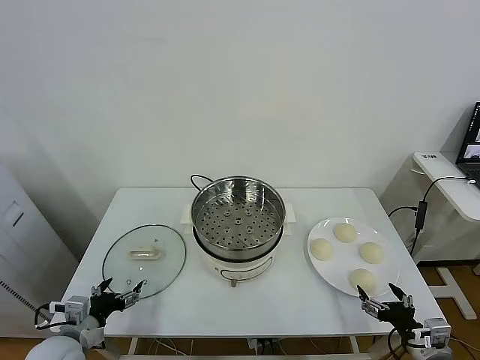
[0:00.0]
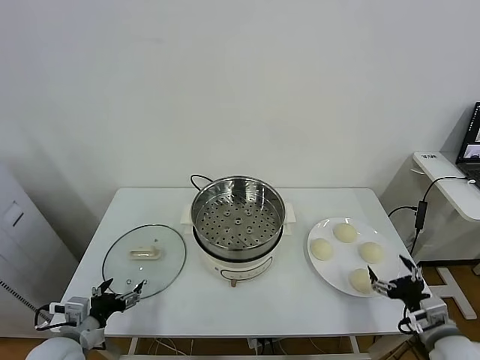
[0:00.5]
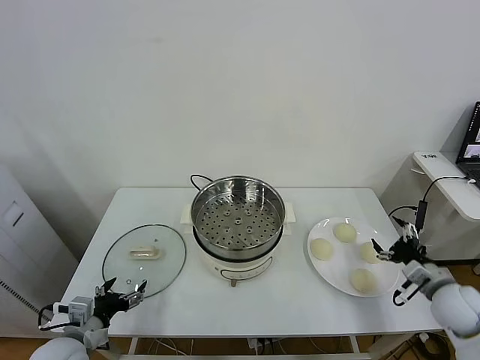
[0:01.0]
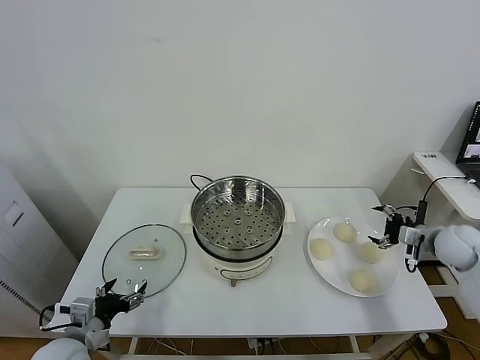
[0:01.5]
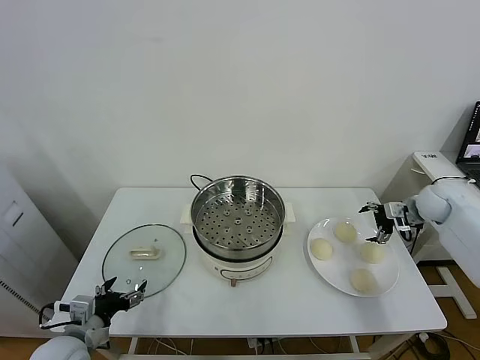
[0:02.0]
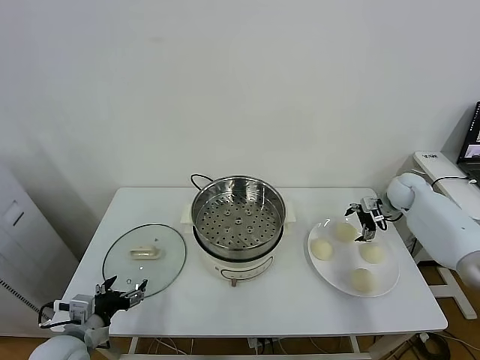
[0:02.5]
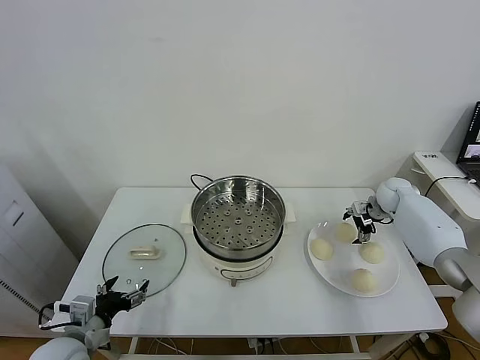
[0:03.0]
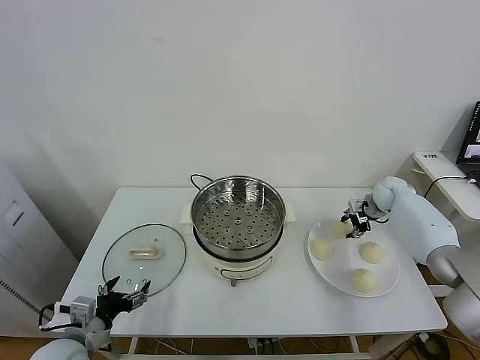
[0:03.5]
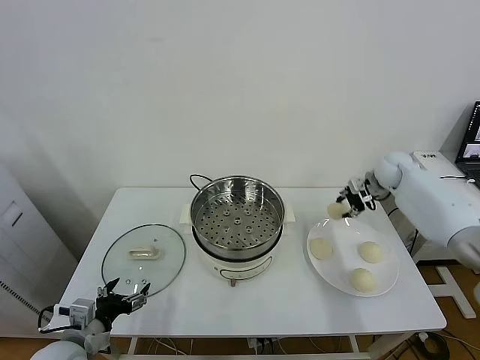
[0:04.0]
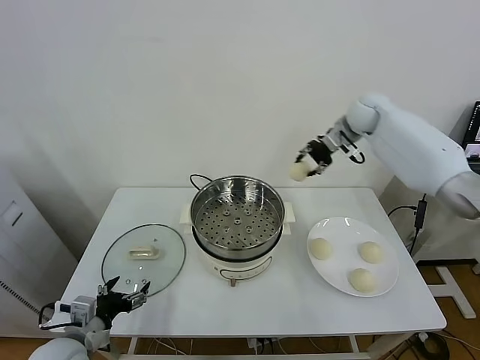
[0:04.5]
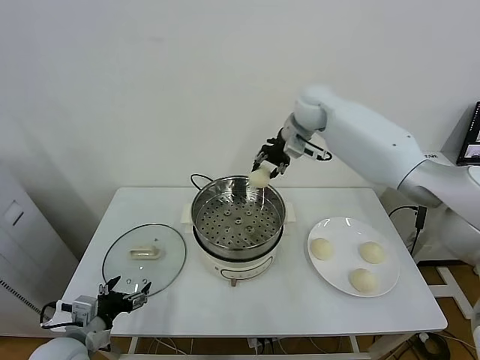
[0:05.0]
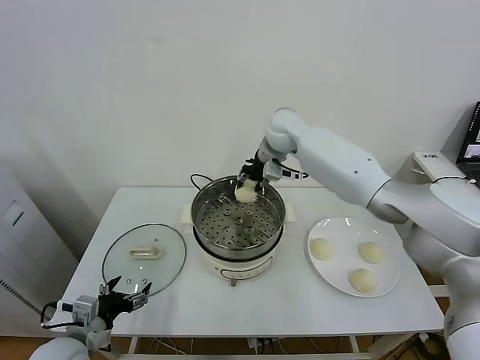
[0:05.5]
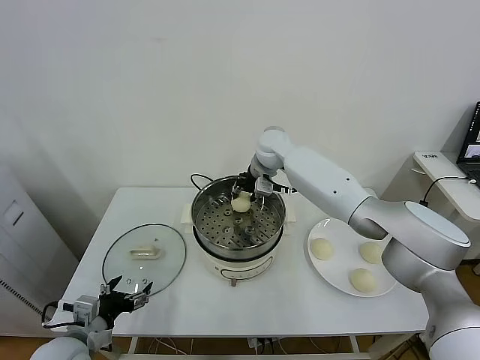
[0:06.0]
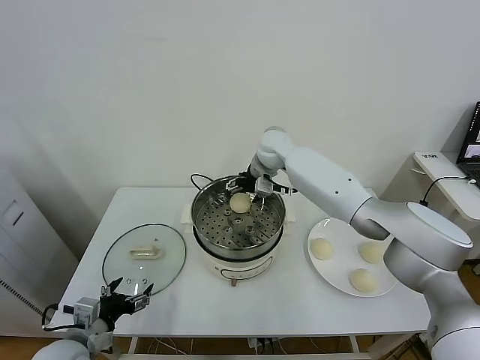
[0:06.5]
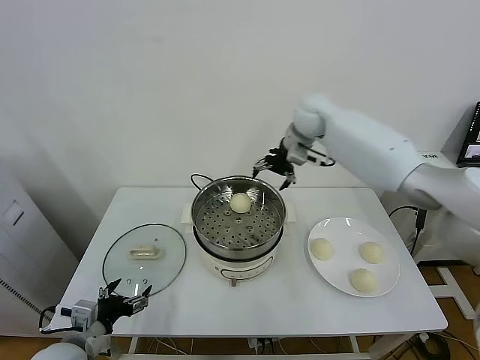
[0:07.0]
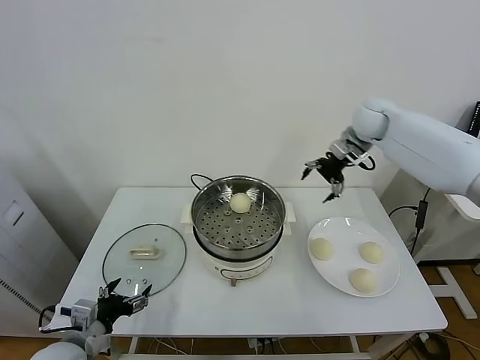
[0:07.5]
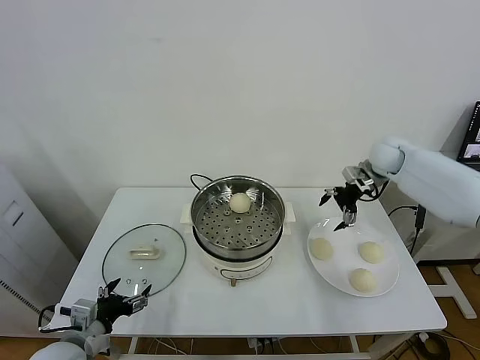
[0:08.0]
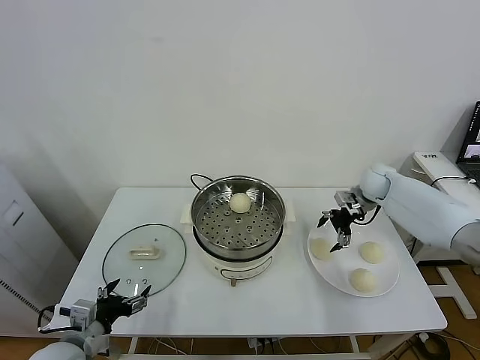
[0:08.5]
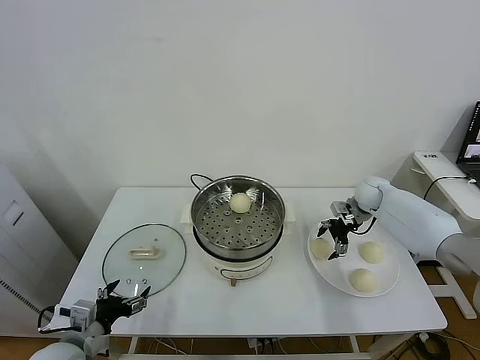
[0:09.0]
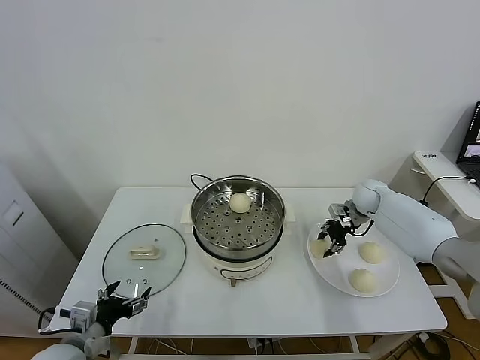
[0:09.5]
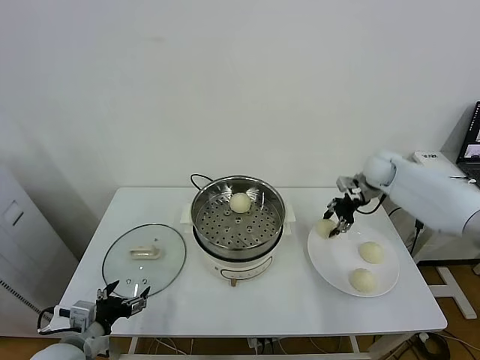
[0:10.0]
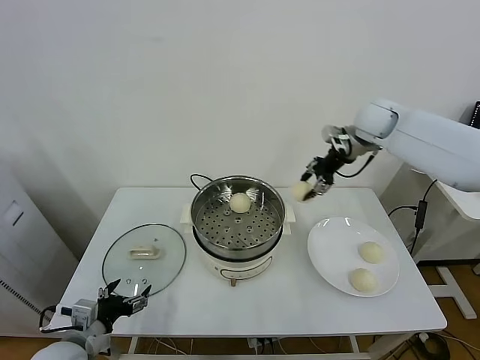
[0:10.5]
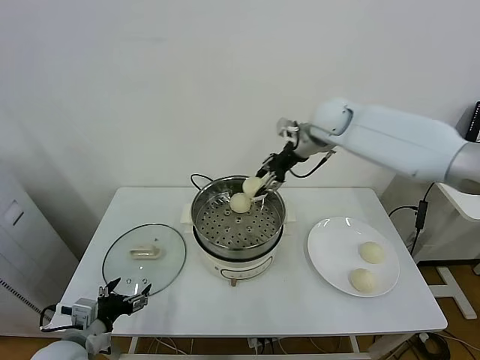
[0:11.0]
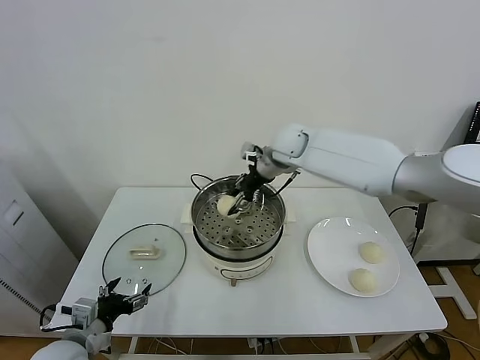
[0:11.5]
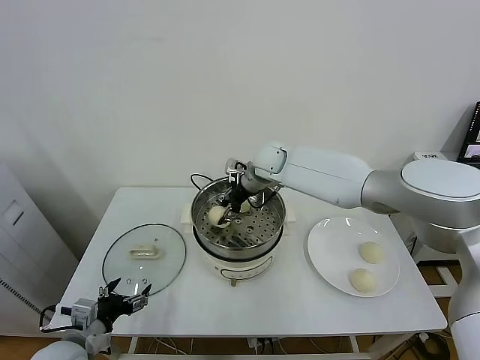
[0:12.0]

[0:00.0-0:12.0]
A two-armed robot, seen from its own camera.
Task of the whole recording: take steamed baozi put them in steamer.
Step, 0:00.0 to 0:03.0: Grasp the baozi in the plate with right gripper.
Step, 0:03.5 to 0:06.0: Place the baozi on the steamer with right gripper.
Step, 0:07.0 to 0:09.0: Grasp the baozi in the plate with right gripper.
0:02.0 to 0:04.0: The right gripper shifts approximately 10 cm forward and to the left, and closes up.
0:04.0 to 0:06.0: The right gripper goes roughly 35 cm to the left.
0:06.0 to 0:08.0: The right gripper shifts approximately 30 cm to the right, and opens up.
0:08.0 to 0:10.0: The right gripper goes downward and returns, some 15 cm each way, and closes up.
0:10.0 to 0:12.0: The right gripper heads to the left, covering about 30 cm.

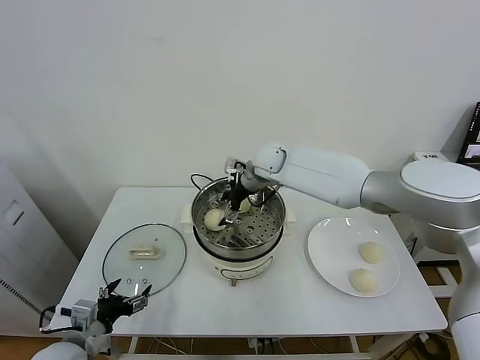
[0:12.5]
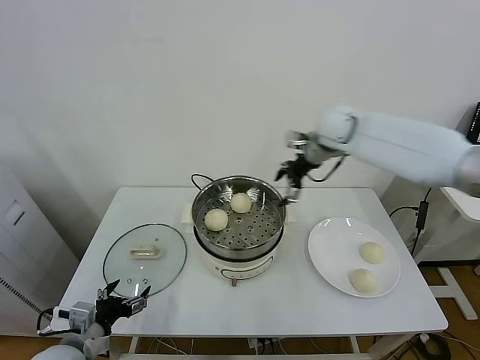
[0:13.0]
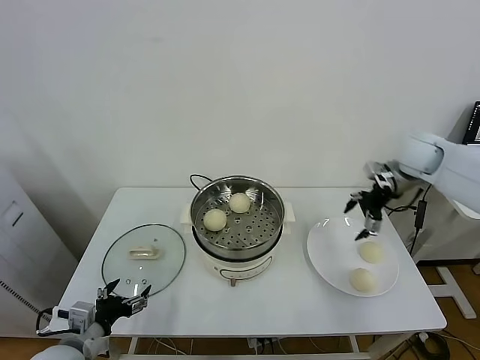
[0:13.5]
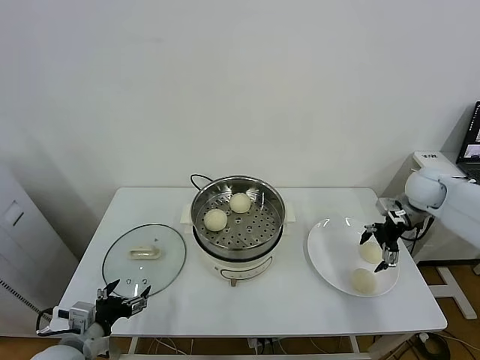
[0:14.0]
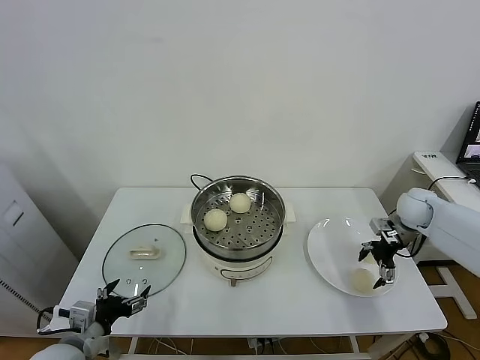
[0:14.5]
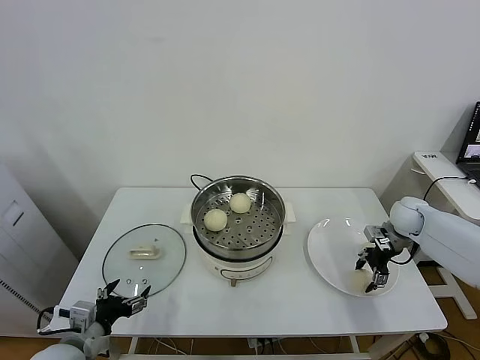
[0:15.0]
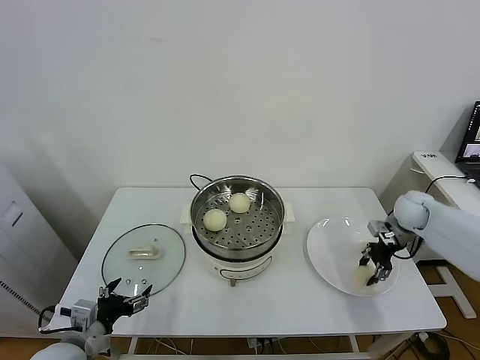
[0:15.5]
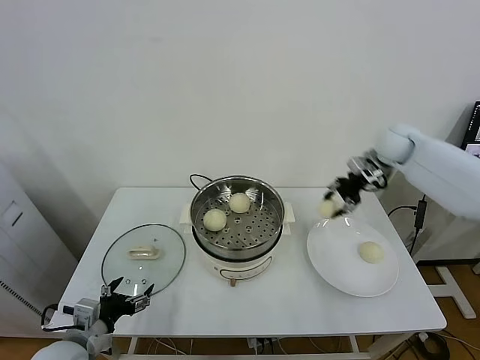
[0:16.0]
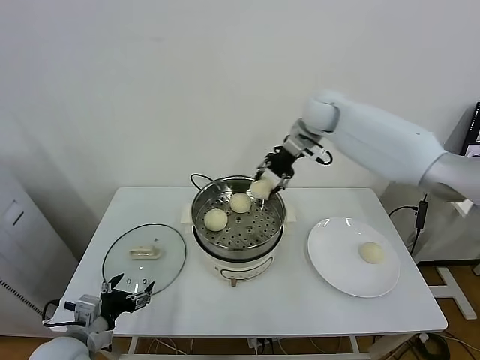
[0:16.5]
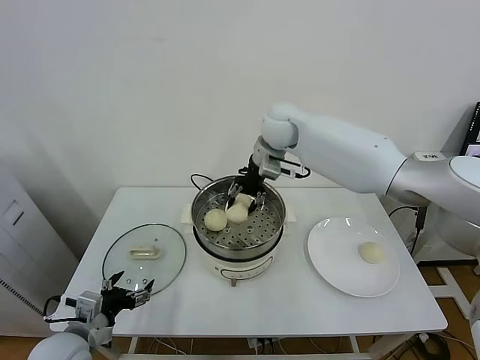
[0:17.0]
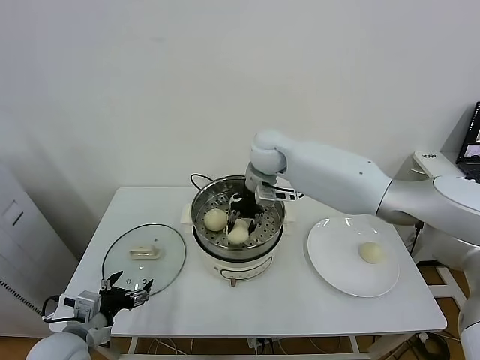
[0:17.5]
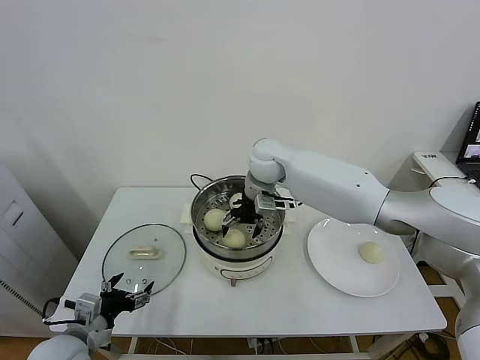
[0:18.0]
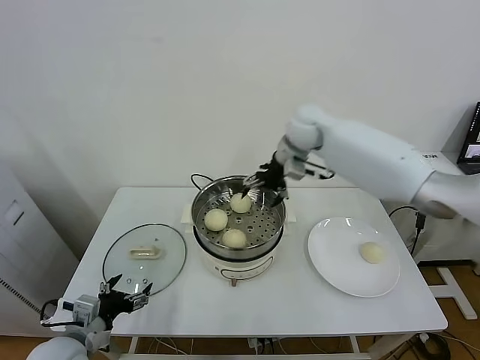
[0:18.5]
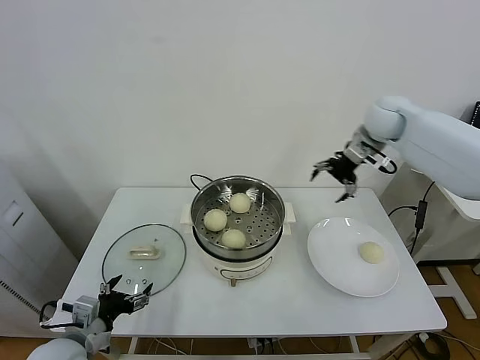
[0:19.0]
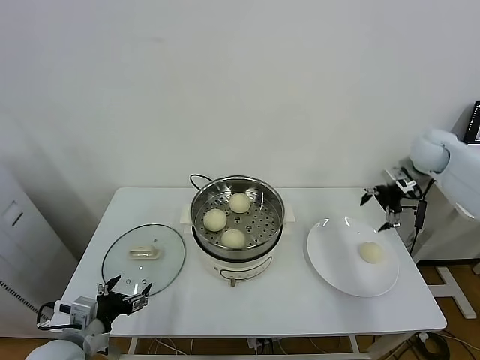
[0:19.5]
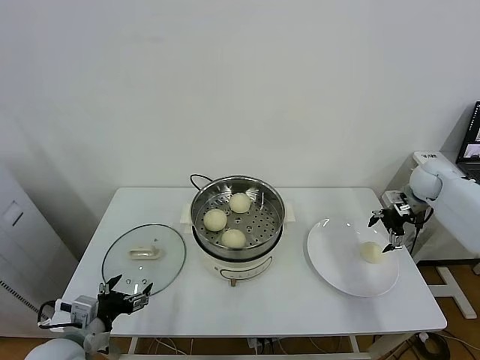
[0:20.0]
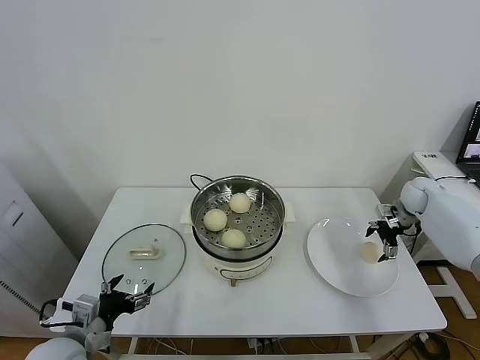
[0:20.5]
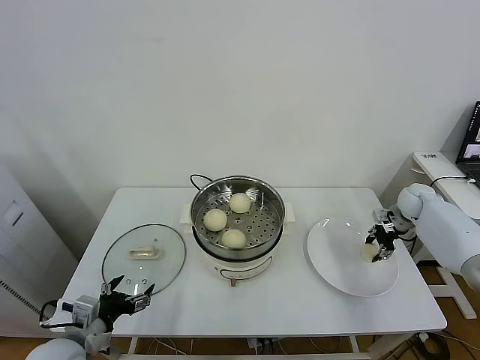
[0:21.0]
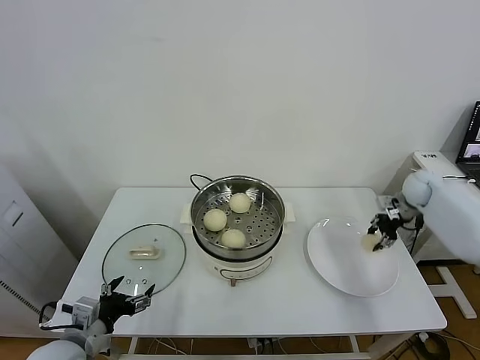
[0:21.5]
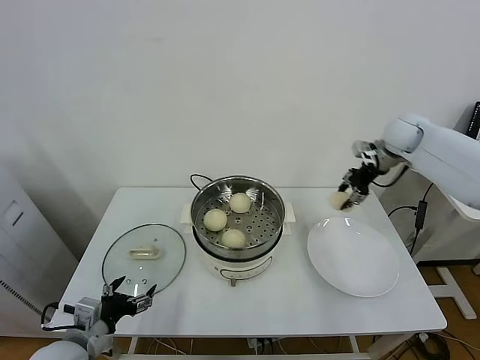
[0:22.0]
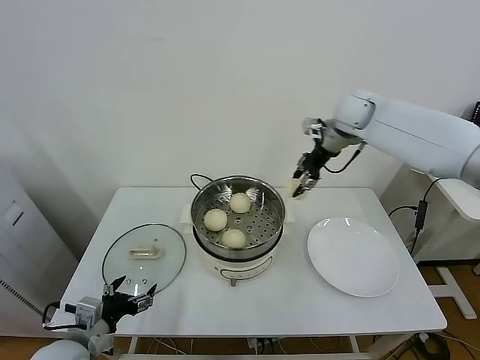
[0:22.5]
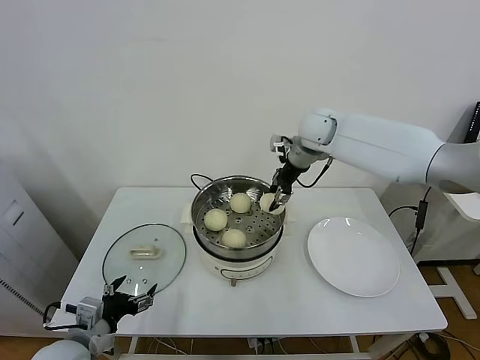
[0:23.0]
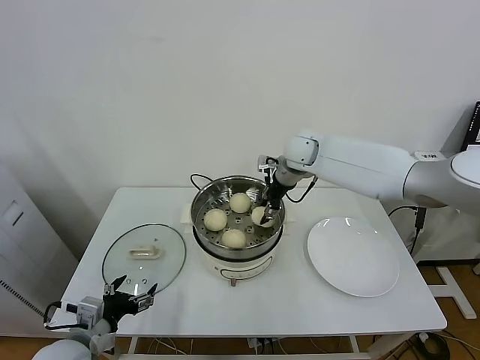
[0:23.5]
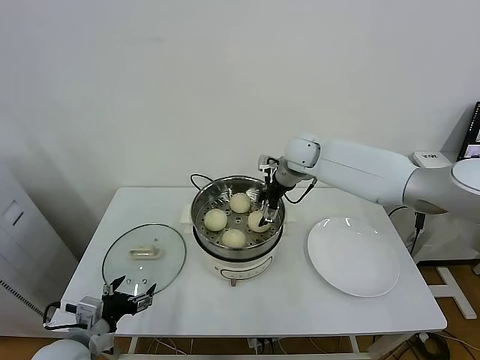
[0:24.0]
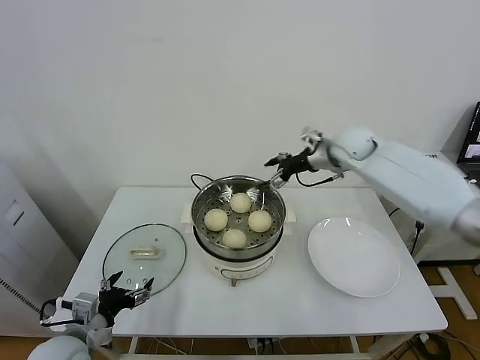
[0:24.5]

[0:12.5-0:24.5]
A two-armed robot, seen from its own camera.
Task of the whole recording: take steamed baozi put them in steamer.
Step, 0:13.0 to 0:15.0: Grasp the baozi in the plate with right gripper.
Step, 0:15.5 to 0:18.0: Place the baozi on the steamer with right gripper.
Step, 0:18.5 to 0:20.5: Grasp the baozi in the plate with right gripper.
Step, 0:21.0 to 0:24.0: Place the baozi on the steamer with right gripper.
0:12.5 to 0:14.5: The right gripper moves to the right, some 35 cm.
0:14.5 to 0:16.5: The right gripper goes approximately 35 cm to the left, upward and forward, and closes.
0:16.5 to 0:18.5: The right gripper moves approximately 10 cm to the left and comes back, and opens.
0:18.5 to 0:20.5: The right gripper goes some 40 cm to the right and downward.
0:20.5 to 0:22.5: The right gripper travels to the left and upward by about 30 cm, and closes.
0:22.5 to 0:24.5: The right gripper goes roughly 10 cm downward, goes to the left and returns, approximately 10 cm each way, and opens.

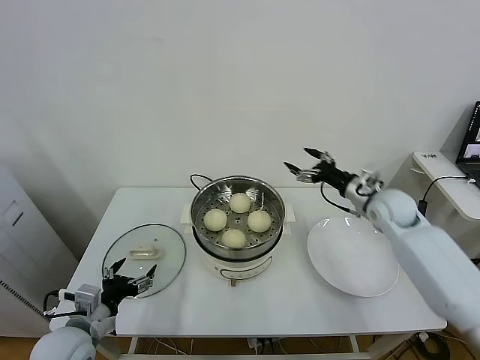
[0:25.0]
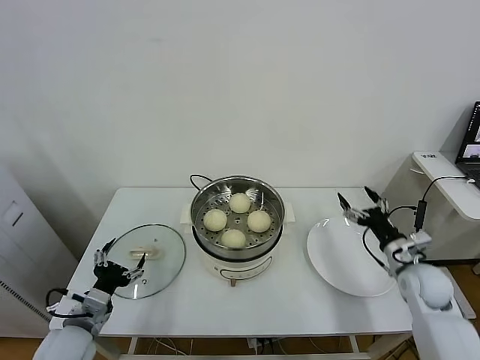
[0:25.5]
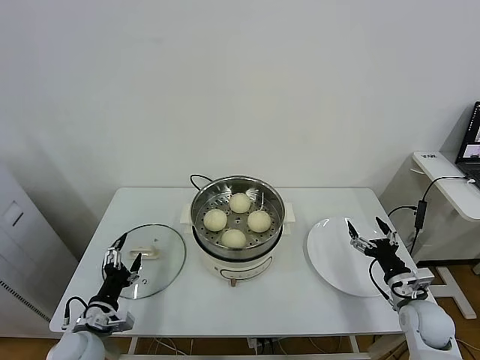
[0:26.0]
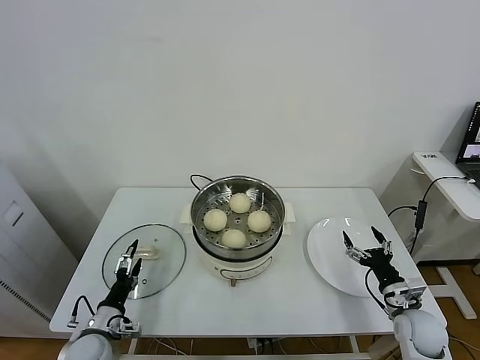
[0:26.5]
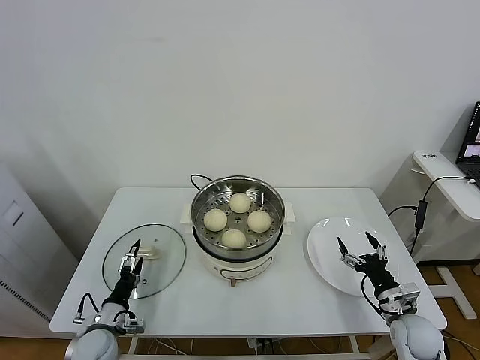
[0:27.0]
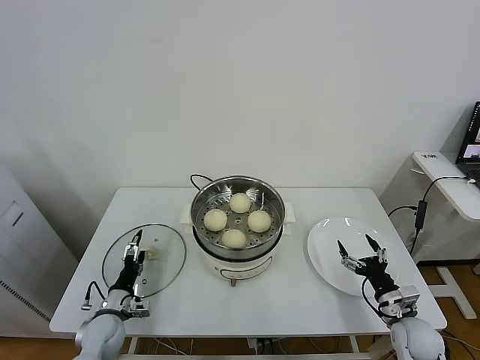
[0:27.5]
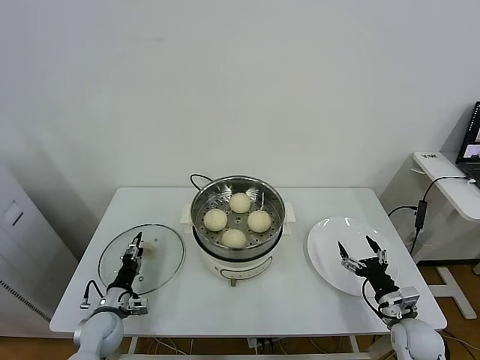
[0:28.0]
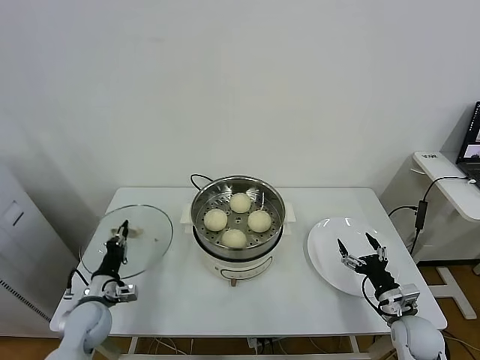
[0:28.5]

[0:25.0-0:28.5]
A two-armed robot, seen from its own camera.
Task of the whole recording: take steamed baozi put them in steamer.
Step, 0:25.0 to 0:28.5: Grasp the pot lid with left gripper.
0:25.0 to 0:27.0: The right gripper heads backward and downward, covering about 30 cm, while the left gripper shifts approximately 15 cm downward.
0:27.0 to 0:28.5: The left gripper changes place by roughly 5 cm, and closes its fingers.
